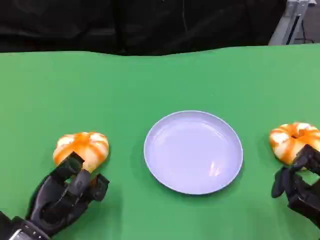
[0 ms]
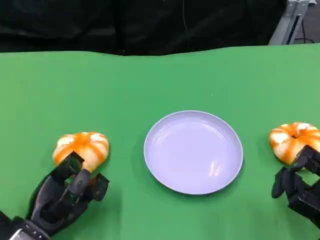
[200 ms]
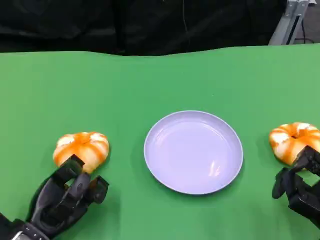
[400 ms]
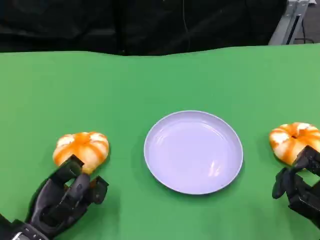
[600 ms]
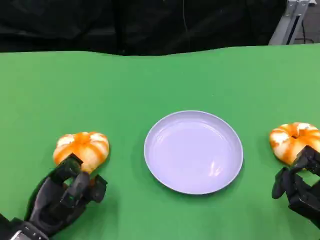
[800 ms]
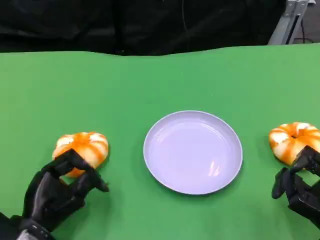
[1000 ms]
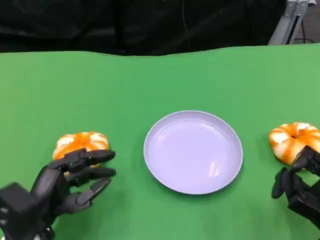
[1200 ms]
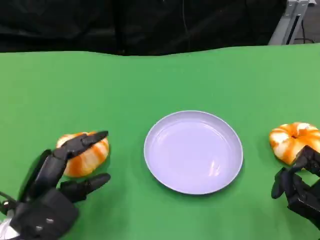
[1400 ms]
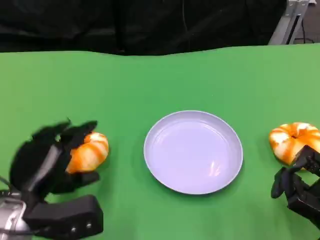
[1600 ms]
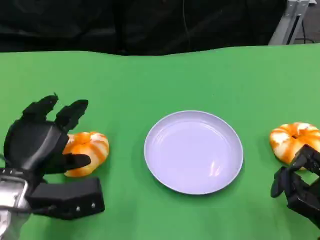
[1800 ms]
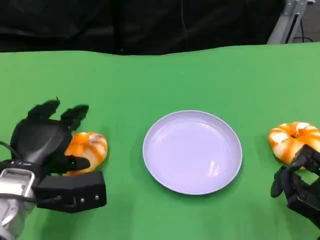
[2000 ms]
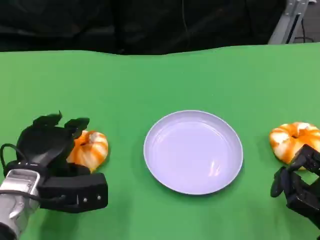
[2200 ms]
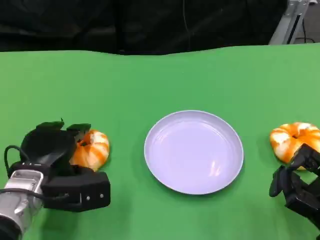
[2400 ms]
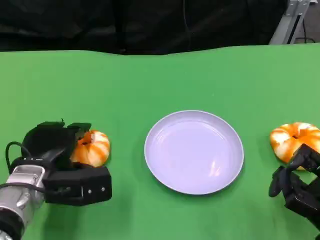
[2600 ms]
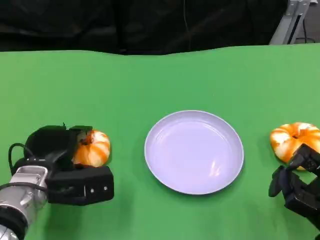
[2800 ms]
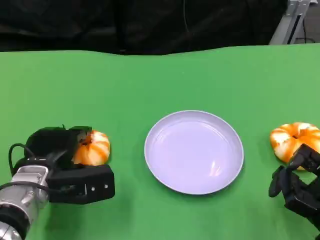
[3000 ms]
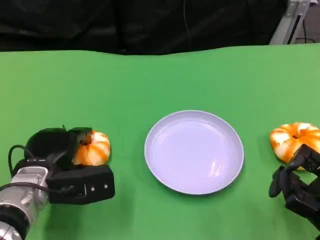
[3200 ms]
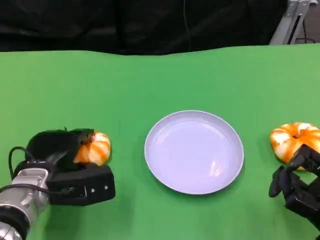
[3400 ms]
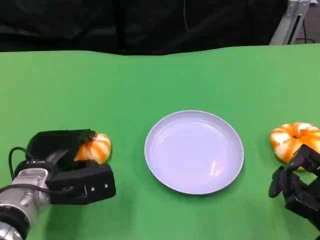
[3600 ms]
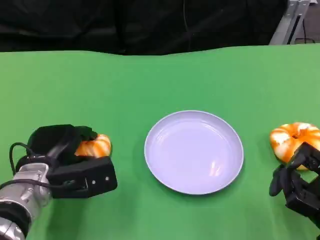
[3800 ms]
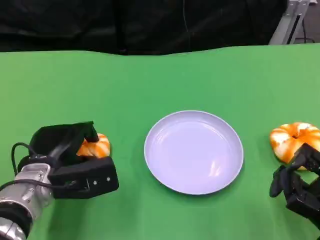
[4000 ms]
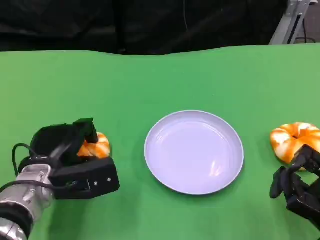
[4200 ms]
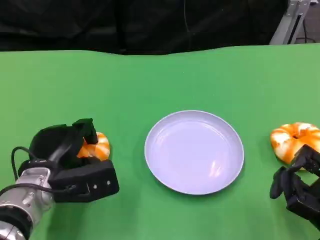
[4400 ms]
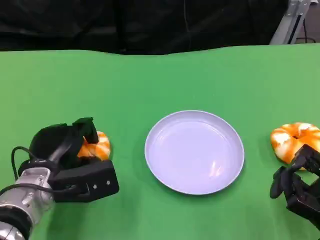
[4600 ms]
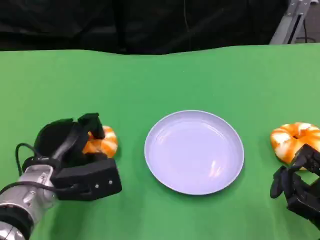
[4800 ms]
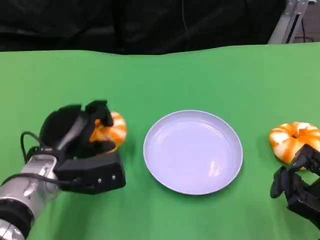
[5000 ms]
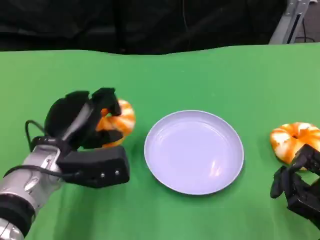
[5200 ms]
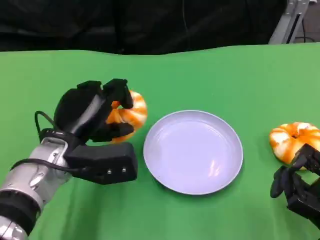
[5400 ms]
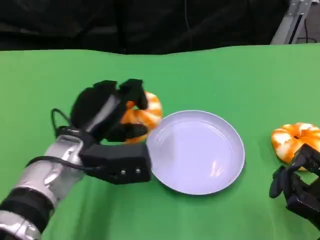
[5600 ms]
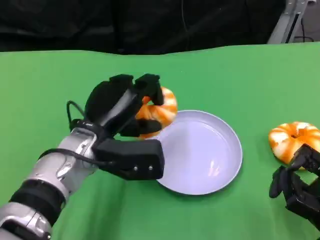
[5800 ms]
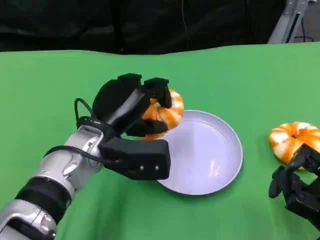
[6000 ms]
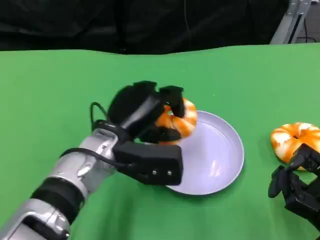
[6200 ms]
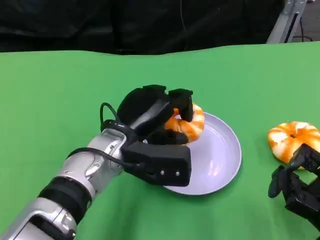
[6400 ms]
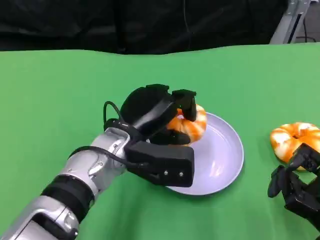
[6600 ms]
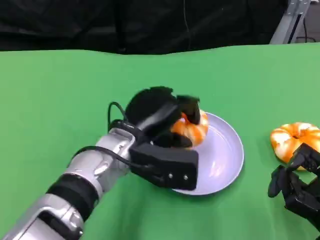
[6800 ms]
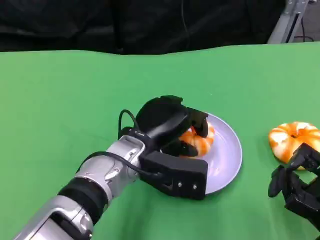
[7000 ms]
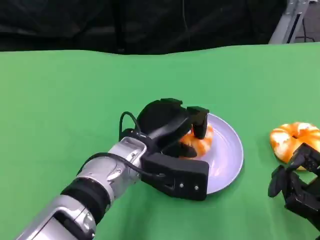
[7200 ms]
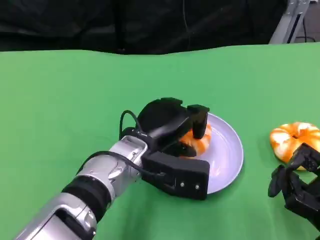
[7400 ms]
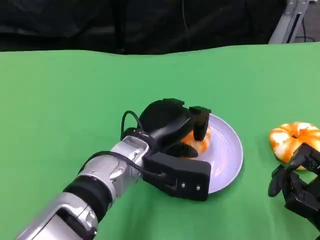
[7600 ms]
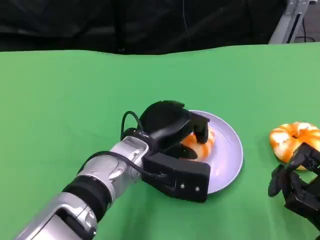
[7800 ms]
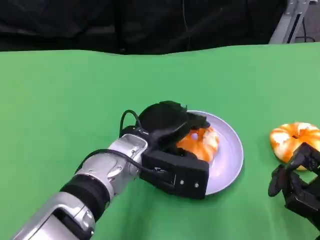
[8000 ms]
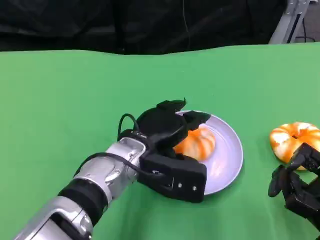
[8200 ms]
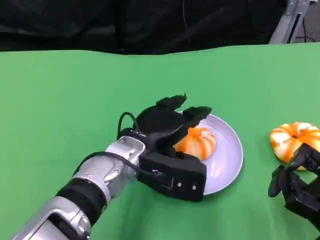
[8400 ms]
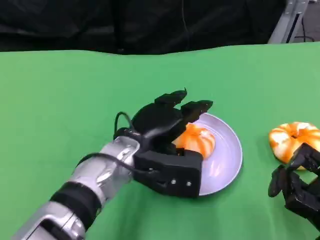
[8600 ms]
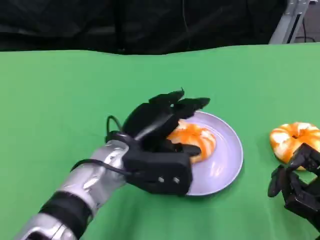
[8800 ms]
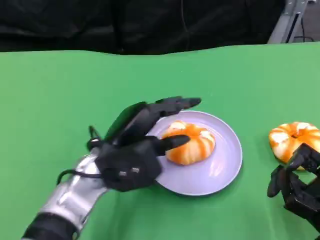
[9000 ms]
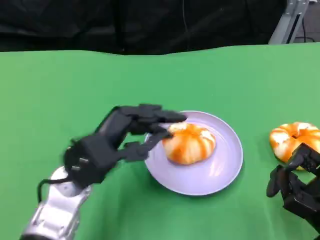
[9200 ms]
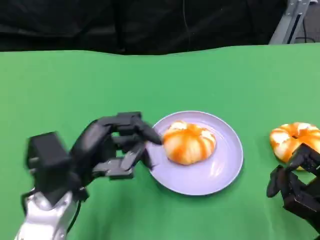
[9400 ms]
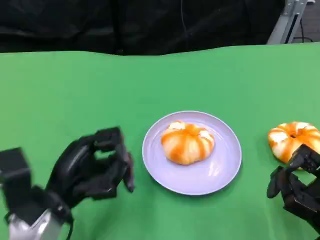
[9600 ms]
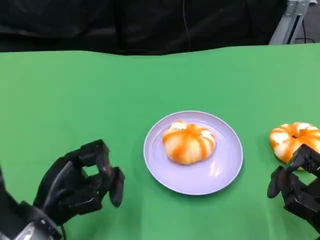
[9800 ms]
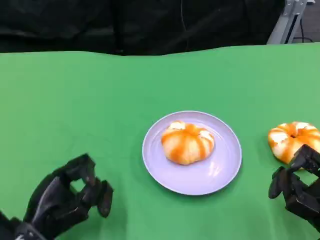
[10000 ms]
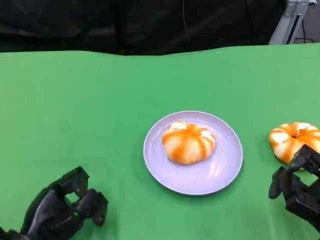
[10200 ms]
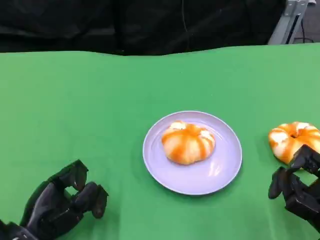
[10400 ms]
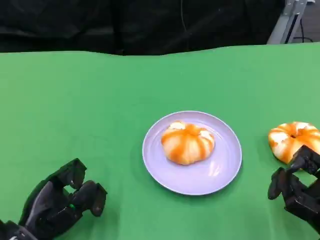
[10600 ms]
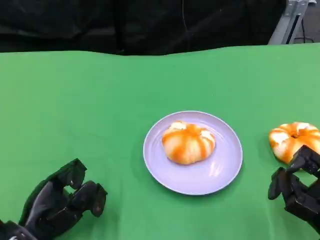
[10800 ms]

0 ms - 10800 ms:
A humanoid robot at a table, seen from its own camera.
Task of the whole recording: Grasp the bread from the table and place it into the plate.
0 ms - 1600 ms: The left hand heads upward, covering approximately 5 cm.
1600 ms - 3000 ms: The left hand changes place by some 5 cm.
3000 ms - 4600 ms: The hands stay close to where they were, moving slightly.
4600 ms - 6200 ms: The left hand shifts some 10 cm to the right and upward.
7800 ms - 9200 ms: The left hand travels to the left by roughly 10 cm.
9200 ms - 10800 ms: The left hand goes about 15 cm downward, to the left and backward.

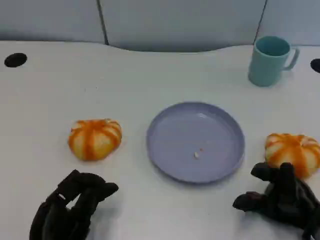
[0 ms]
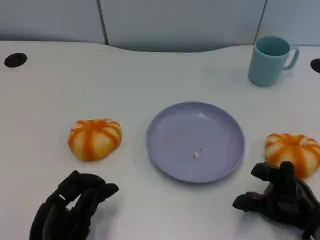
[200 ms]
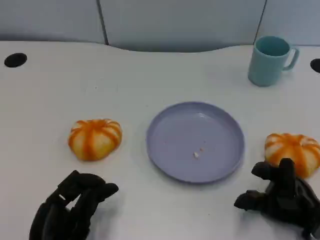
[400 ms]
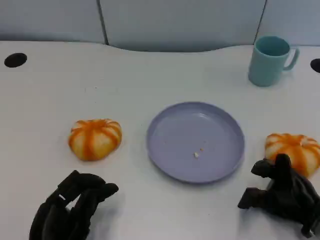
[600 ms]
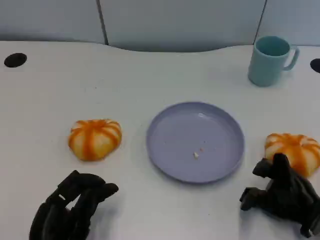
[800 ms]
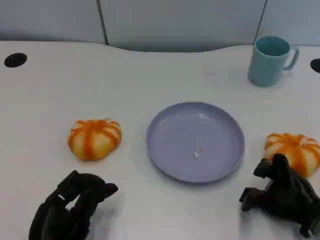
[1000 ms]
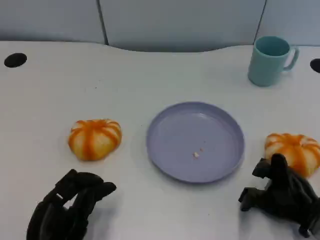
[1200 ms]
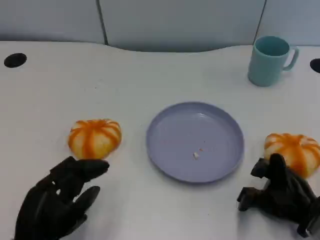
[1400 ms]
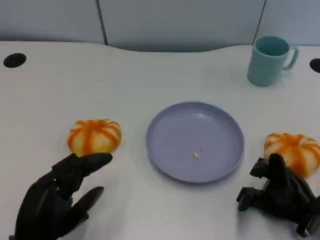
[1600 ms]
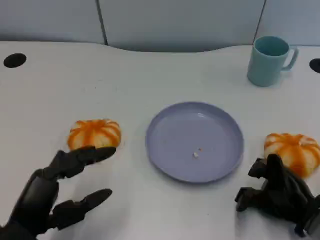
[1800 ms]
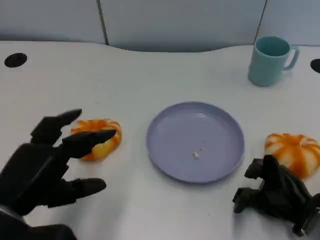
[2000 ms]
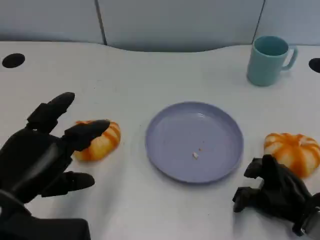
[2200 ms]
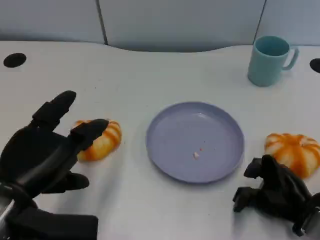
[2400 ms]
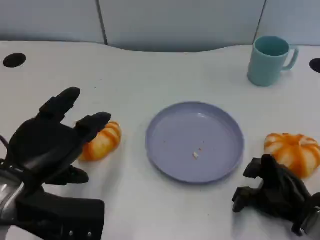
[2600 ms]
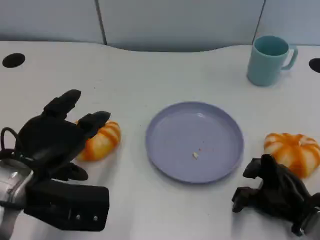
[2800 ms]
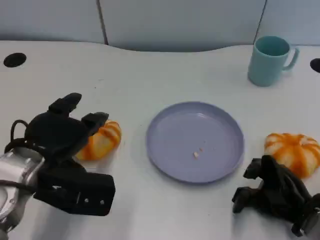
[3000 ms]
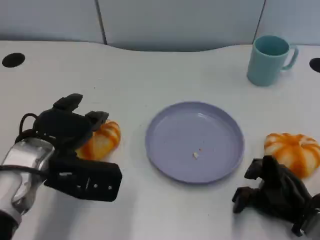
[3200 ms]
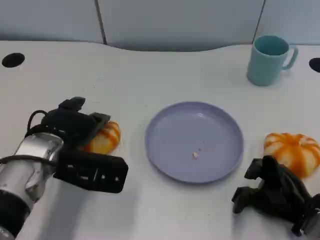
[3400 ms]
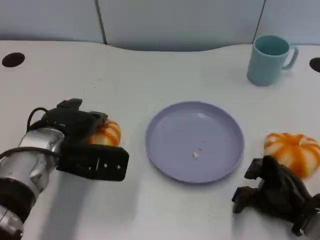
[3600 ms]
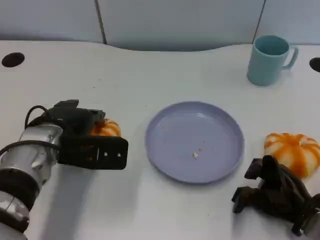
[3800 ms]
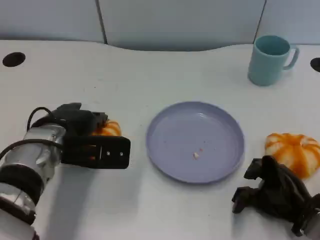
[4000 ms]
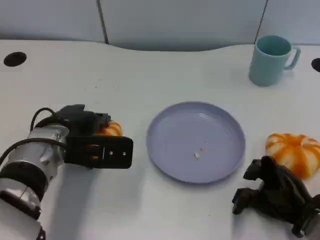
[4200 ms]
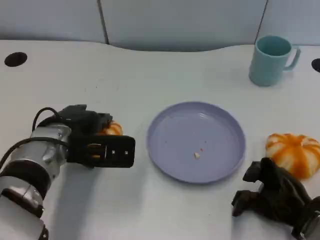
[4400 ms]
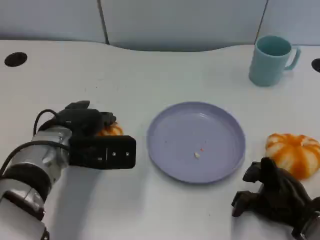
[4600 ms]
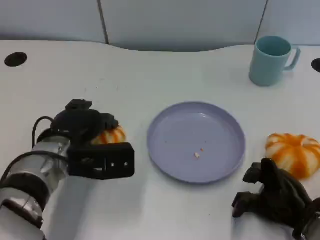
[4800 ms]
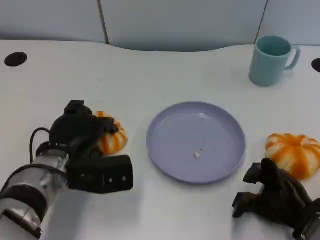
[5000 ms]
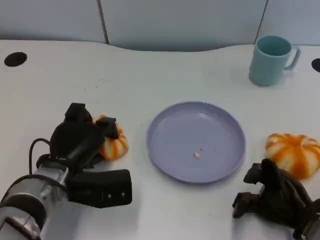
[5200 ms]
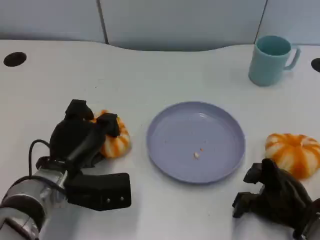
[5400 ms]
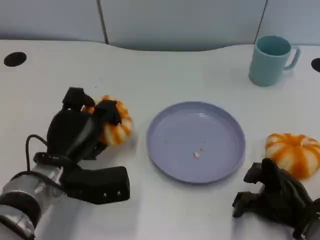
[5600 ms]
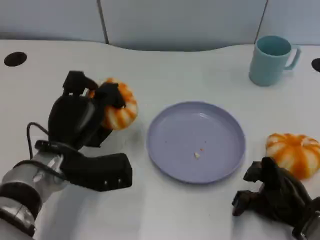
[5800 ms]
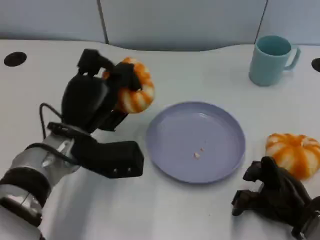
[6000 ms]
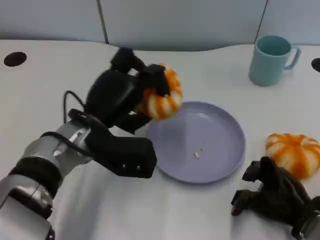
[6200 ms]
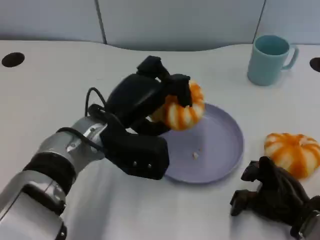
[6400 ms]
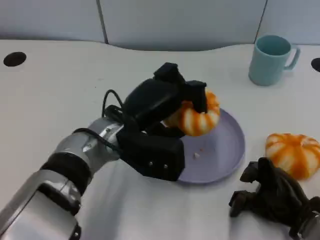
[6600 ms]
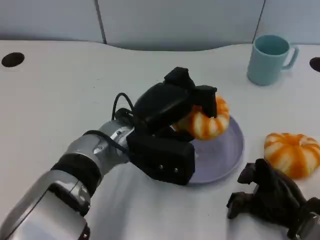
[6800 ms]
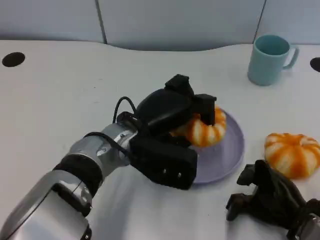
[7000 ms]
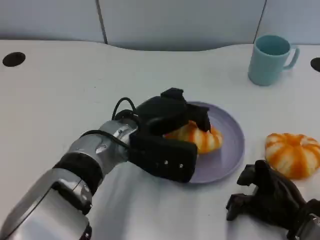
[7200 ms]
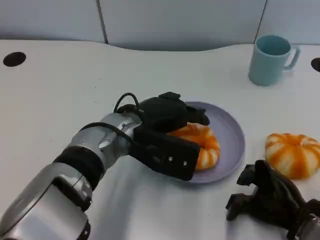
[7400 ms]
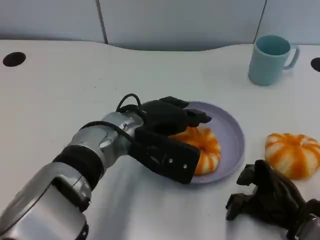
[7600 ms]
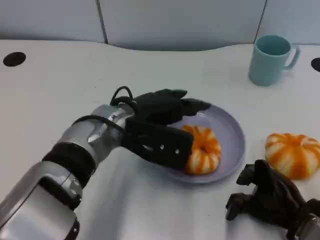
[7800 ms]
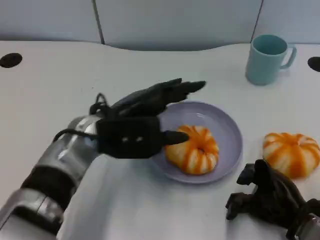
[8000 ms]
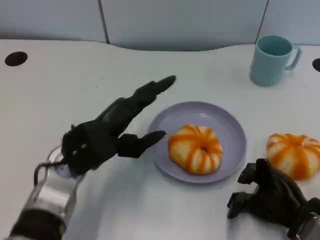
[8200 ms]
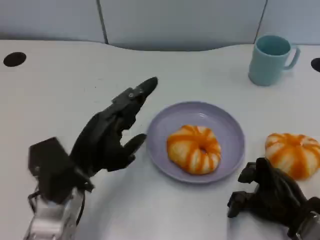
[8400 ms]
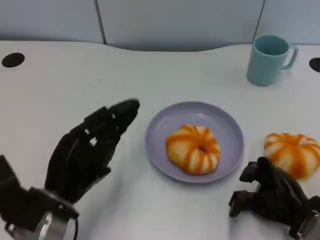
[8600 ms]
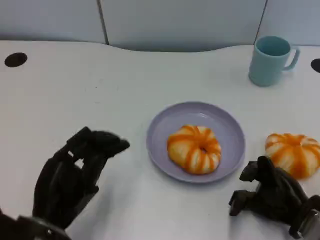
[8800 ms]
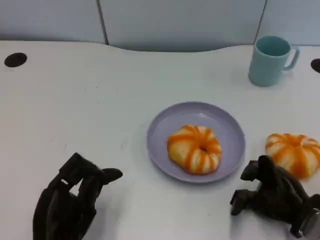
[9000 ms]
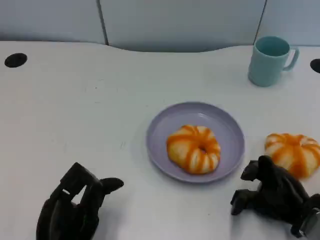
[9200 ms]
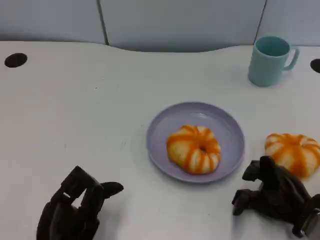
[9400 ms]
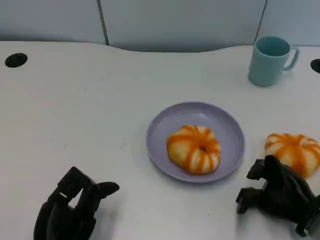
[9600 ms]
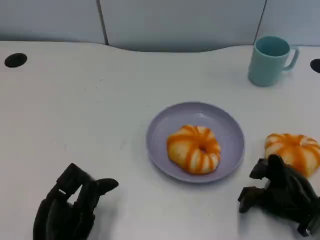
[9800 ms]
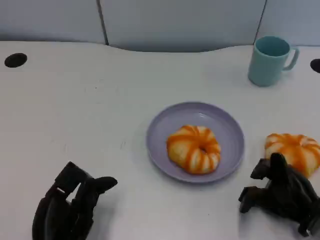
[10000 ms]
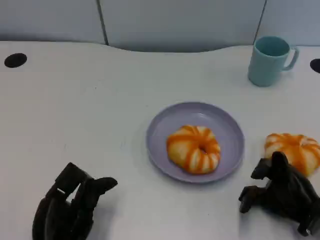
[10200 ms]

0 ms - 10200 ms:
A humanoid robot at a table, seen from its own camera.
Task of the whole recording: Grasp the bread from the table and place it into the plate.
1400 ms - 3000 ms: The left hand heads forward and upward, covering roughly 15 cm.
3000 ms - 4400 ms: The left hand heads forward, covering about 5 cm.
5800 ms - 7200 ms: The left hand is displaced to the right by approximately 10 cm.
7200 ms - 8800 ms: The left hand shifts roughly 20 cm backward, to the left and downward.
8800 ms - 10200 ms: The hands stay close to where they were, moving slightly.

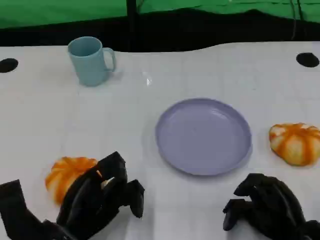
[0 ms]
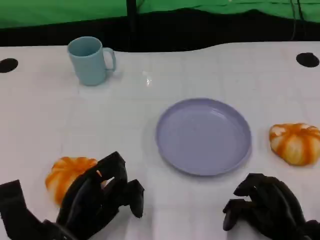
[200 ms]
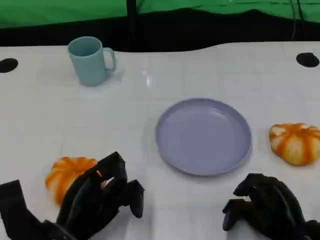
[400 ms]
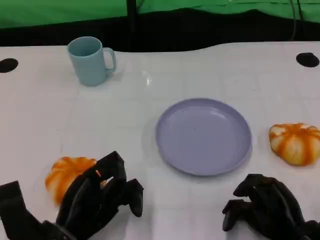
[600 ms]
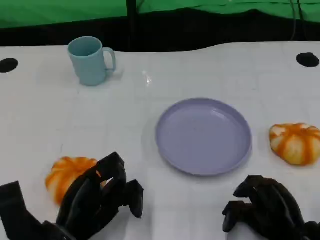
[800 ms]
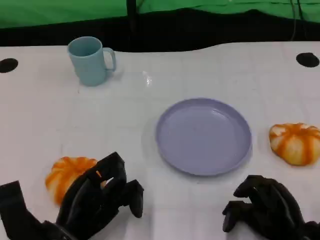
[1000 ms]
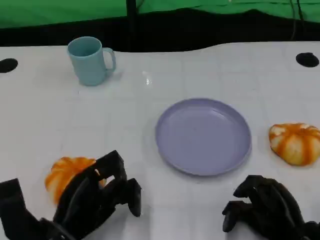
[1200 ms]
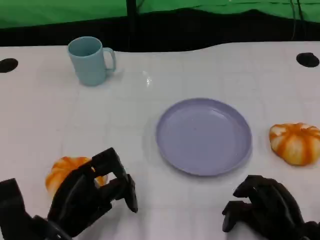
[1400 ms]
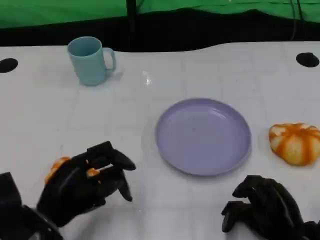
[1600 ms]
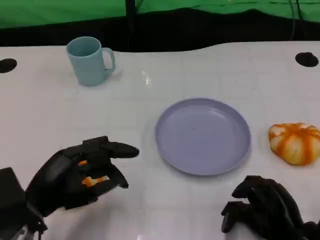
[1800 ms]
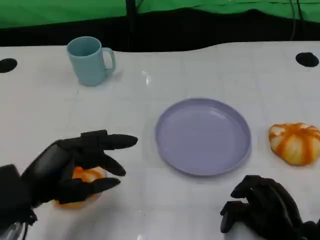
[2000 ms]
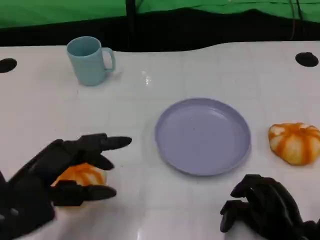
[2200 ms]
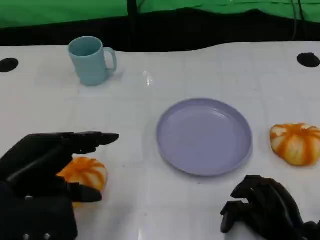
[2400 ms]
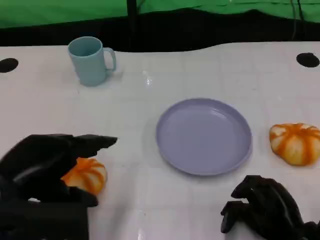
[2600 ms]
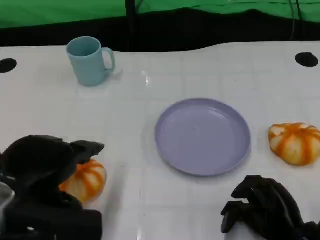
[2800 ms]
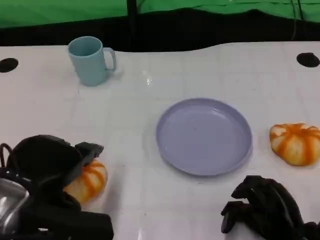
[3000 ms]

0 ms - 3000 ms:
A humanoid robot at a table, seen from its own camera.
Task of the whole recording: Grasp the bread from the table and place it into the plate.
0 ms - 1600 ms: The left hand shifts by about 5 cm.
1600 ms - 3000 ms: The left hand heads upward, covering approximately 10 cm.
